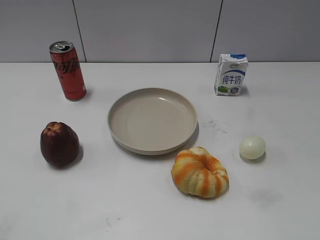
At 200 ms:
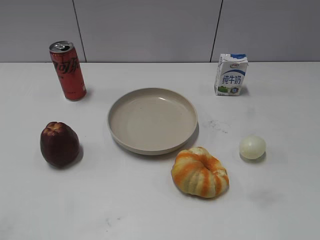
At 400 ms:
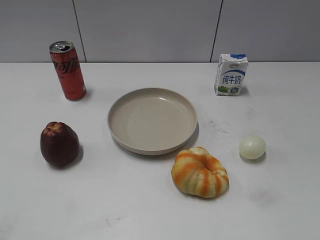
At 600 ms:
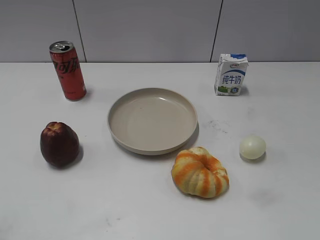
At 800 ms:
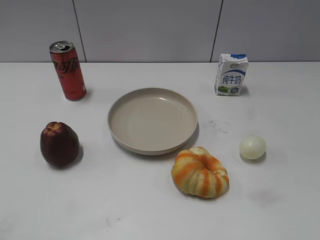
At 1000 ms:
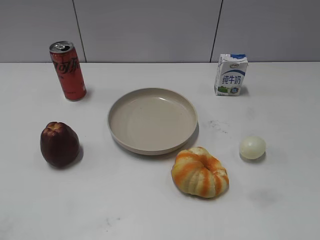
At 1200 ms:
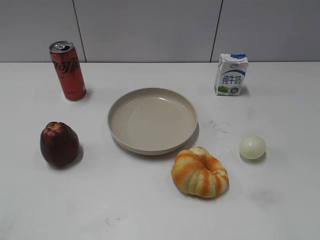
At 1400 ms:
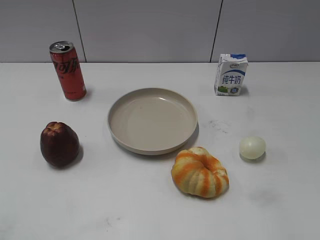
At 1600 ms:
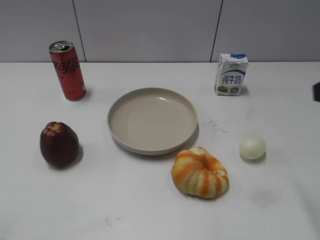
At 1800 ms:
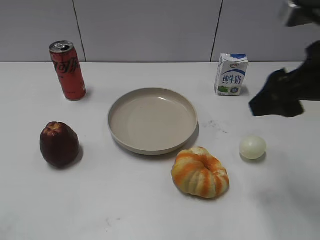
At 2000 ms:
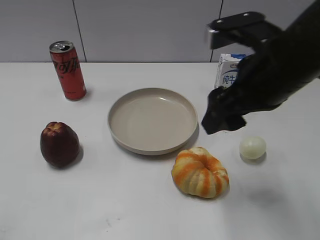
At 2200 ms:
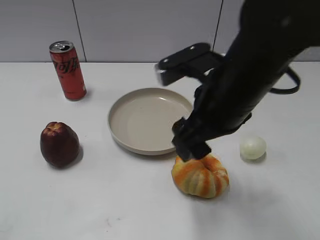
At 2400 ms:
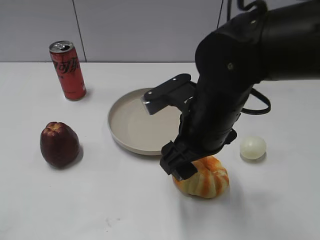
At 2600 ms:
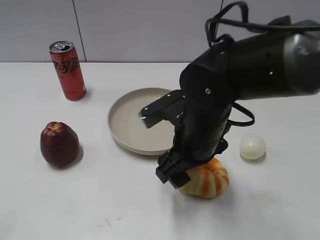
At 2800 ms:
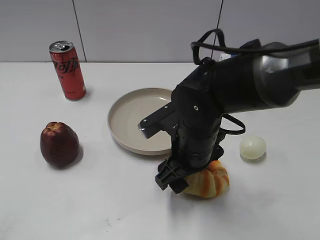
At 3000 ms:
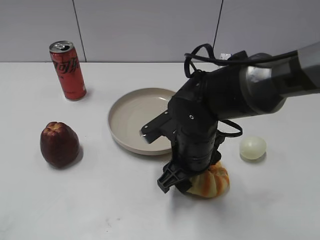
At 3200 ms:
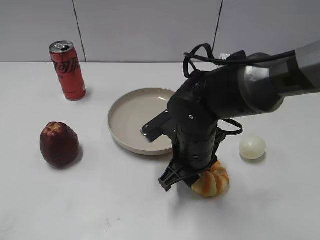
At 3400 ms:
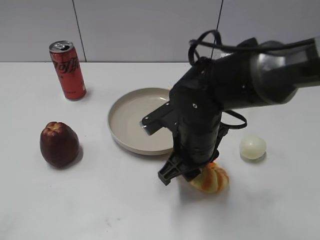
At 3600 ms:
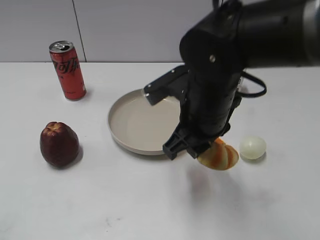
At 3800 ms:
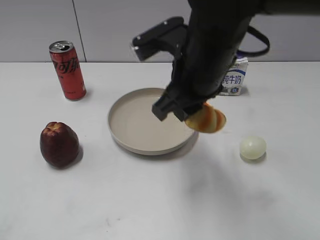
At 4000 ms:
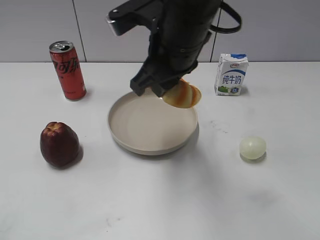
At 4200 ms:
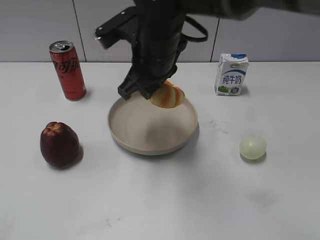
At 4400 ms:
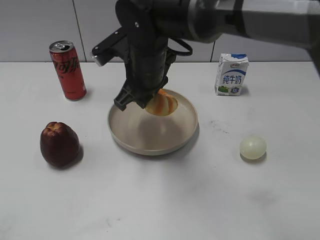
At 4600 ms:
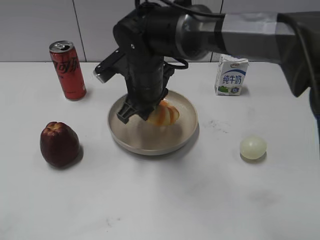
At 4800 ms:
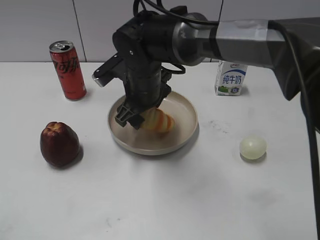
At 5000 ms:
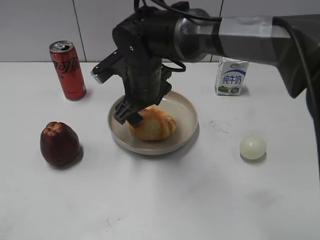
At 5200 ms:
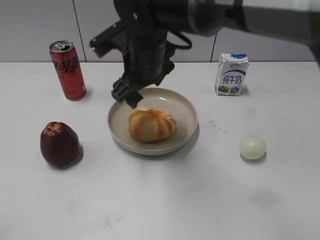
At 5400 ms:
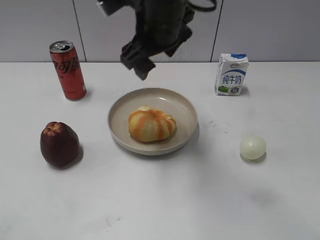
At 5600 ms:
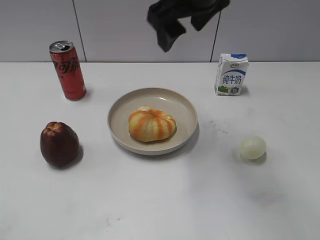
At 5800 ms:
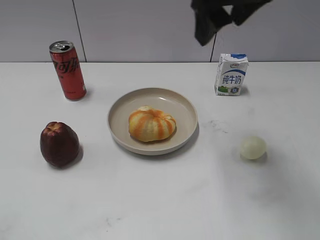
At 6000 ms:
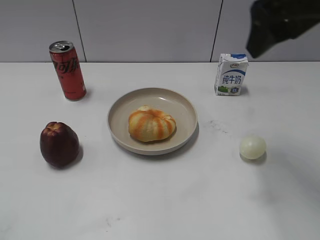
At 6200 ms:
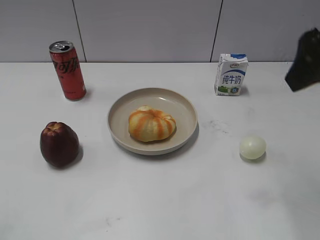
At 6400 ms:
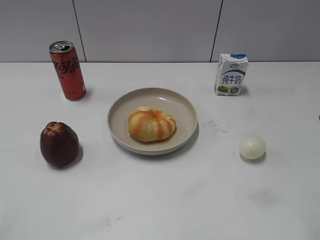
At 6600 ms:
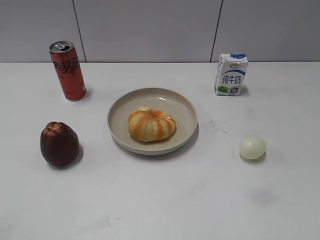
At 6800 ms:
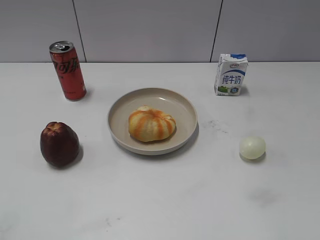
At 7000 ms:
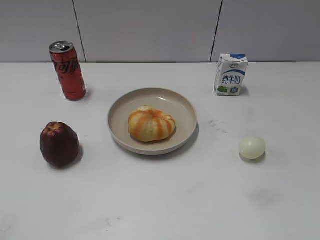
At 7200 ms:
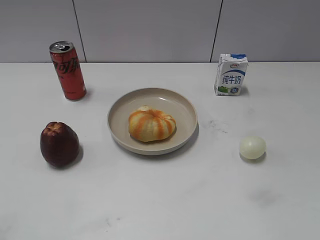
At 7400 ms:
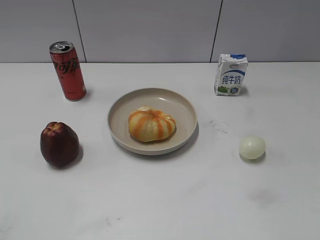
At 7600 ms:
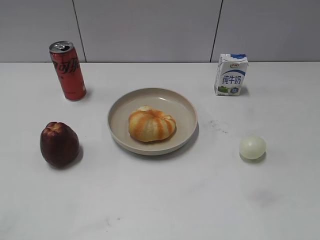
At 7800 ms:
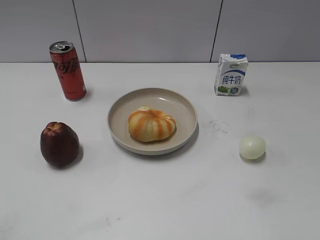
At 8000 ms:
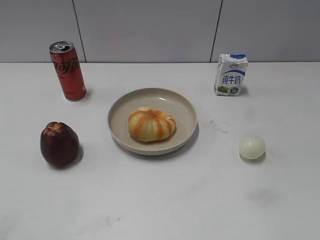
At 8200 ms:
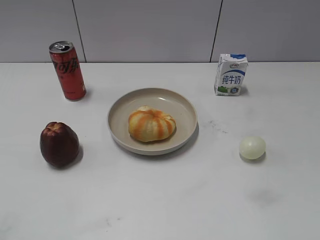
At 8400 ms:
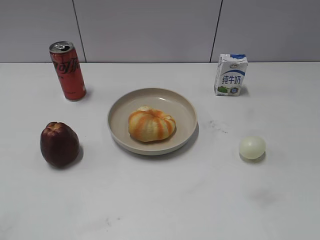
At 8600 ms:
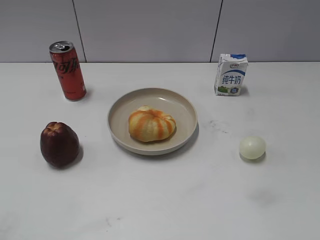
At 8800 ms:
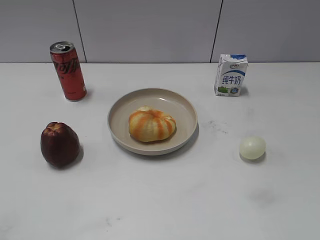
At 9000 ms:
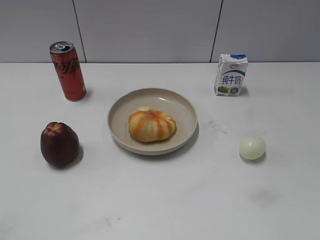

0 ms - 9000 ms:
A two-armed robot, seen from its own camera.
Step, 1000 ms - 3200 ms: Grasp the round bread with right gripper.
Step, 3400 ms - 5200 ms: Place the round bread on the plate with right gripper.
1600 ms - 3000 ms: The right gripper moves to the left and downward, about 30 cm.
3000 ms - 4400 ms: The right gripper goes roughly 15 cm forward, upward and to the left, and closes.
4400 ms - 6000 ms: The right gripper heads to the right and upward, covering roughly 25 cm, and opens up.
6000 ms - 7600 ms: The right gripper is displaced backward and to the right by some 30 cm.
